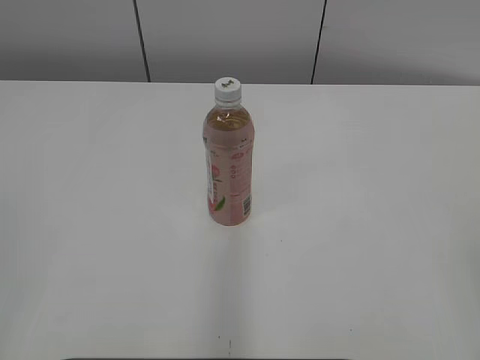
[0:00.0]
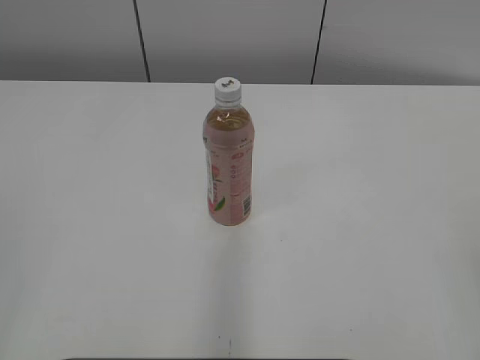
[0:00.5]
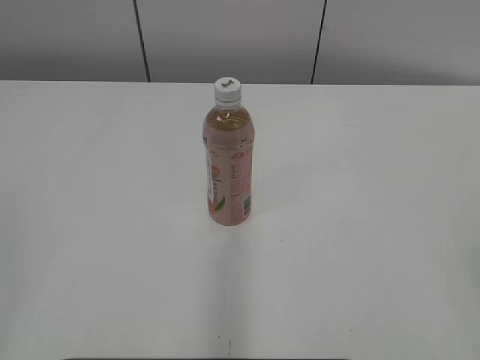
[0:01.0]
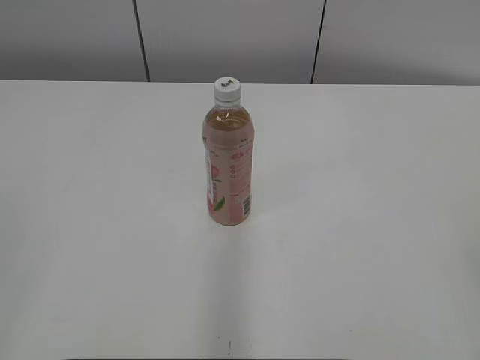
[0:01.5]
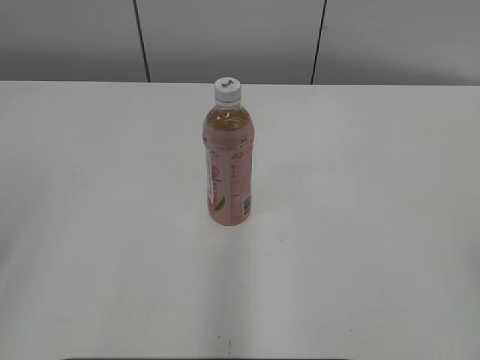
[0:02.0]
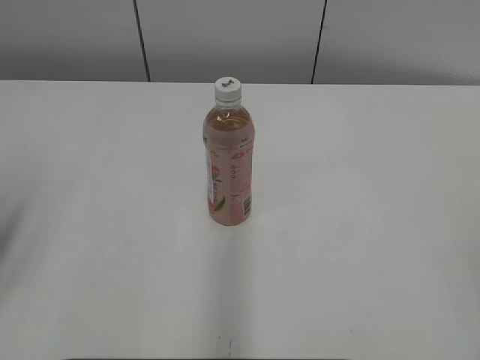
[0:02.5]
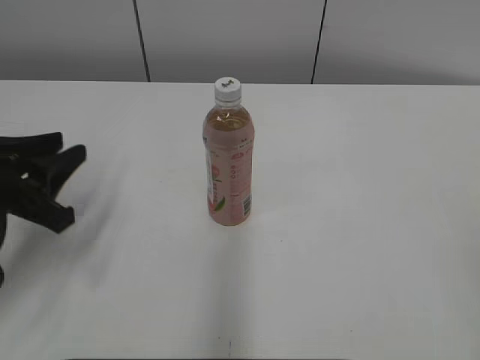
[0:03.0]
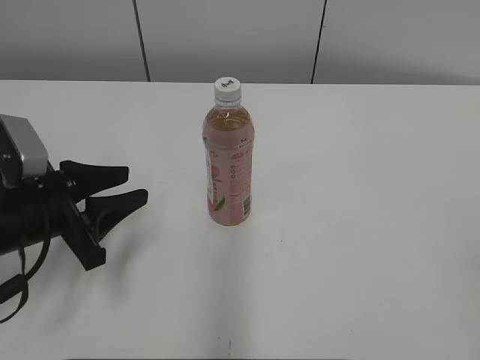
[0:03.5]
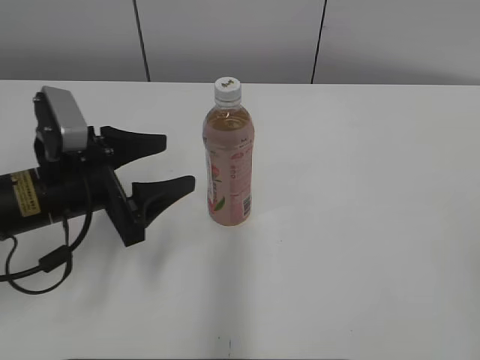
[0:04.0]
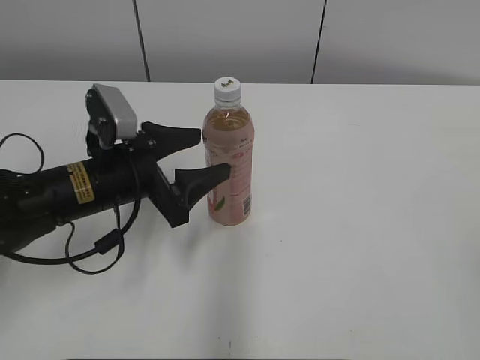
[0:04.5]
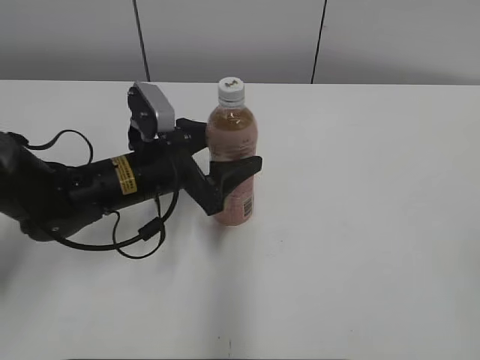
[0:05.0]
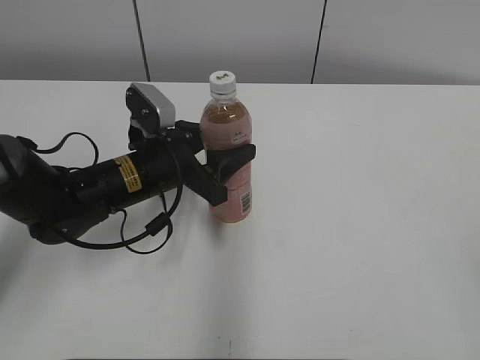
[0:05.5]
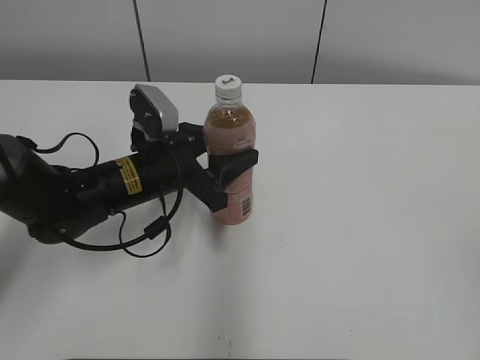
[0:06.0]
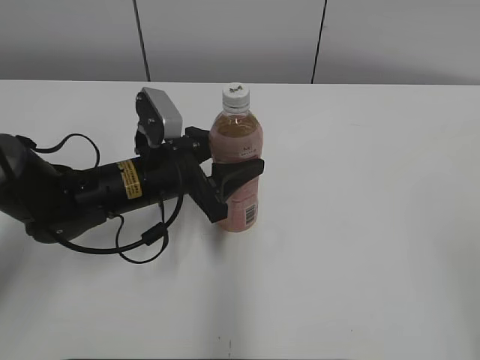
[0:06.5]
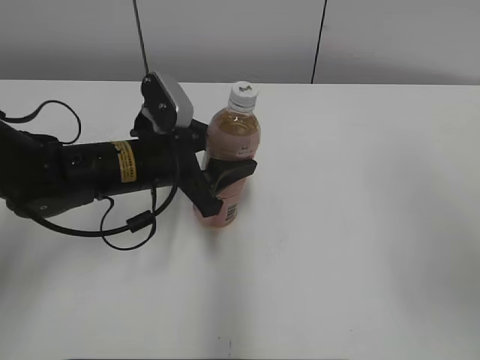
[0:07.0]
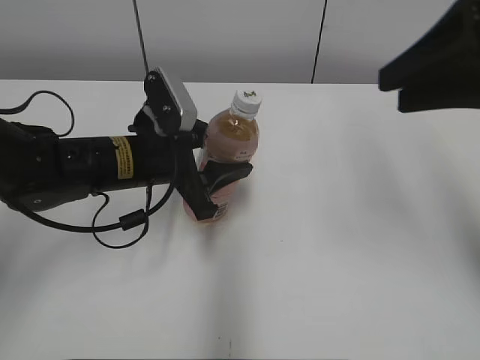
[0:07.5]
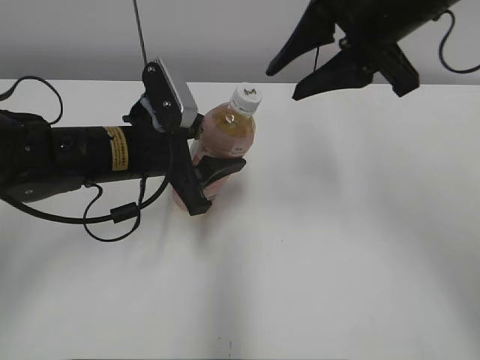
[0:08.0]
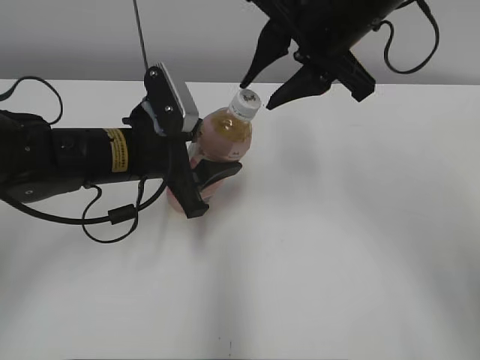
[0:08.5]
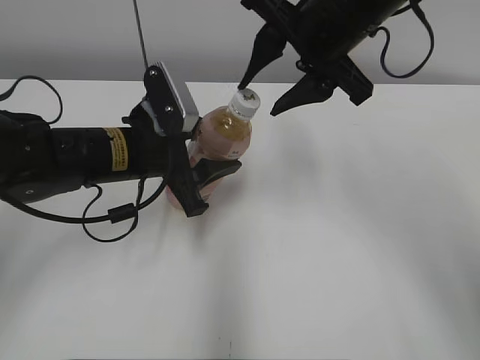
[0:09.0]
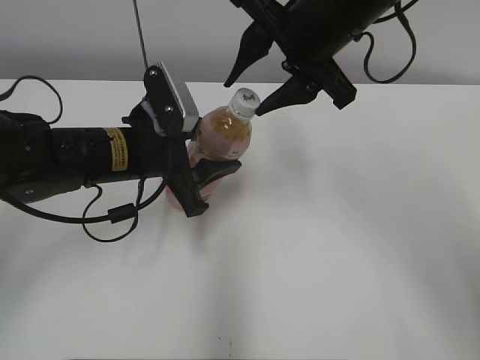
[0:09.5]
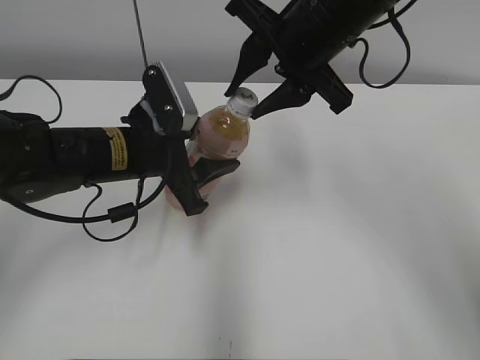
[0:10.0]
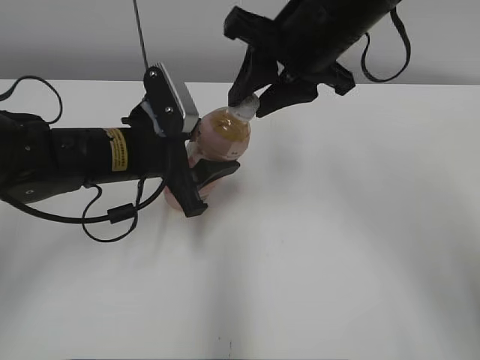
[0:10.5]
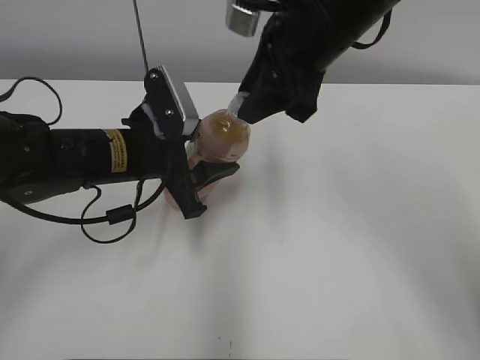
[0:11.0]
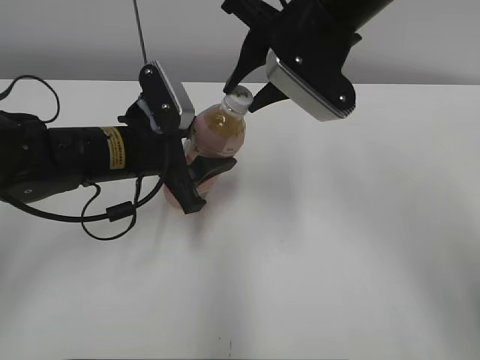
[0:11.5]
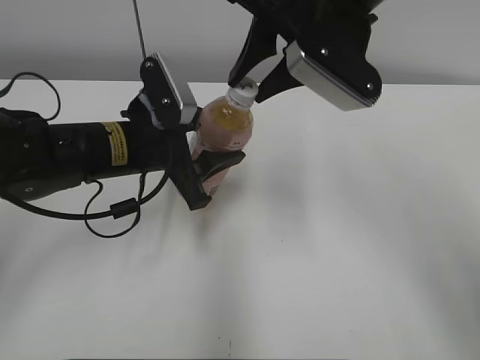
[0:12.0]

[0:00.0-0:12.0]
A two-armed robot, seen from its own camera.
Step, 0:00.0 to 0:05.0: Grab the Peach Oolong Tea with the left hand.
0:02.0 to 0:04.0: The left gripper heads forward, downward and to the right, covering about 30 cm, and opens up.
0:04.0 to 0:06.0: The left gripper travels to the right and forward by about 10 cm.
0:06.0 to 0:08.0: The right gripper is displaced forward and to the left by roughly 35 cm.
0:08.0 to 0:10.0: The right gripper changes place by about 5 cm.

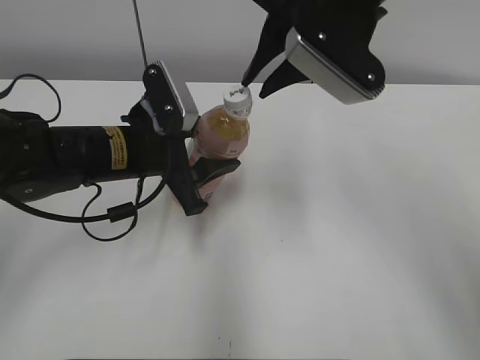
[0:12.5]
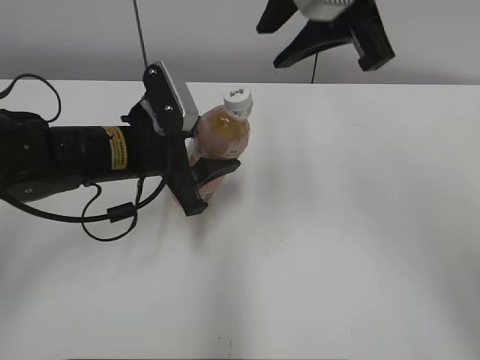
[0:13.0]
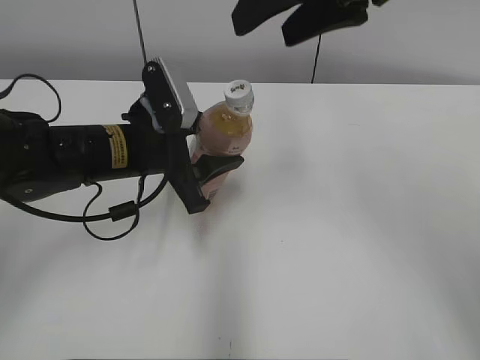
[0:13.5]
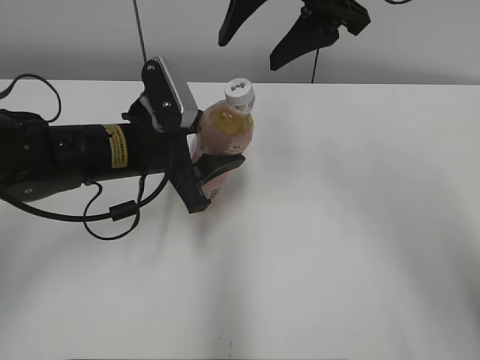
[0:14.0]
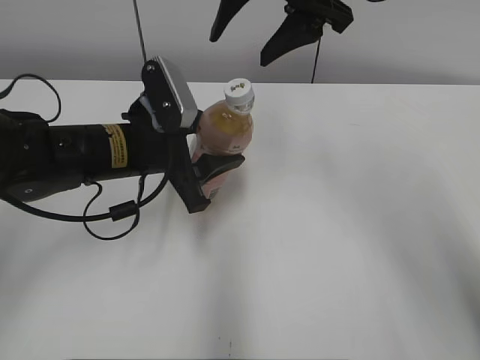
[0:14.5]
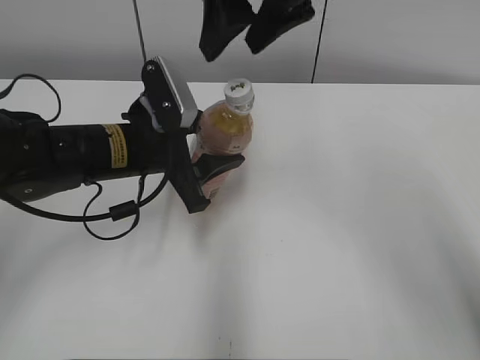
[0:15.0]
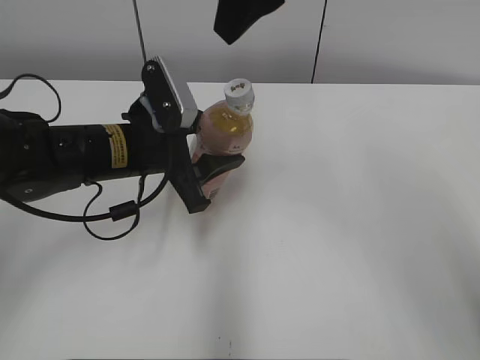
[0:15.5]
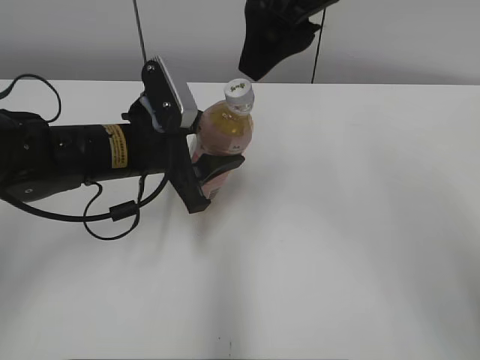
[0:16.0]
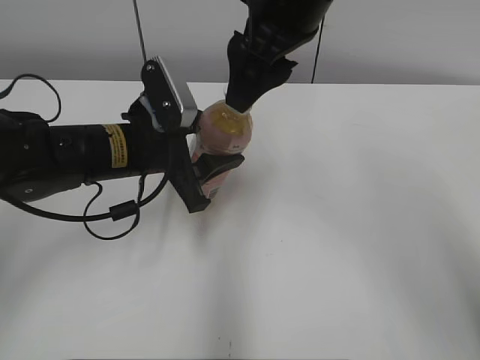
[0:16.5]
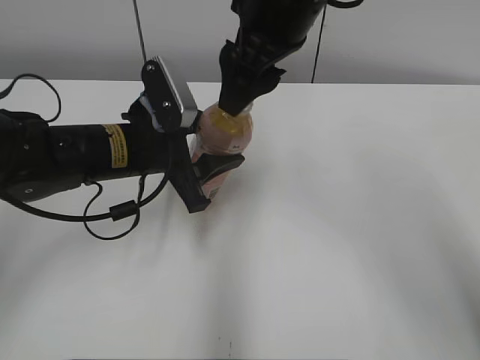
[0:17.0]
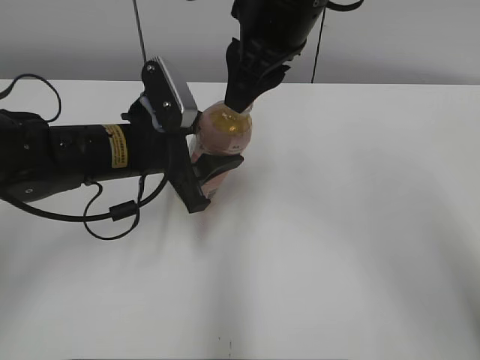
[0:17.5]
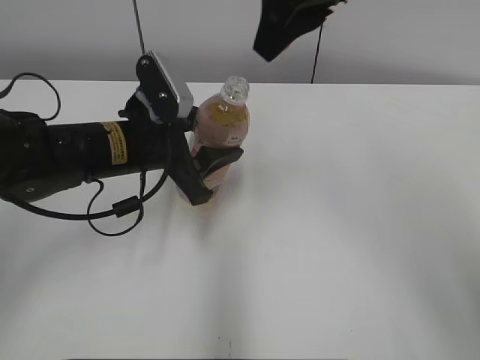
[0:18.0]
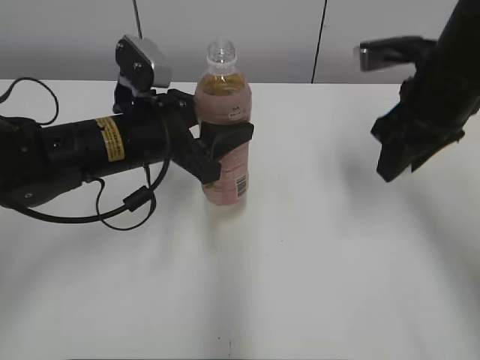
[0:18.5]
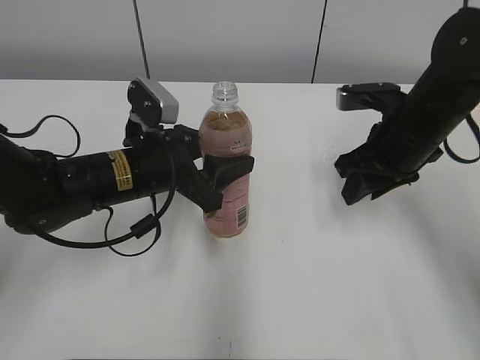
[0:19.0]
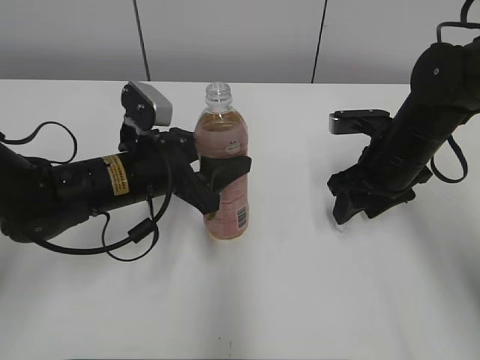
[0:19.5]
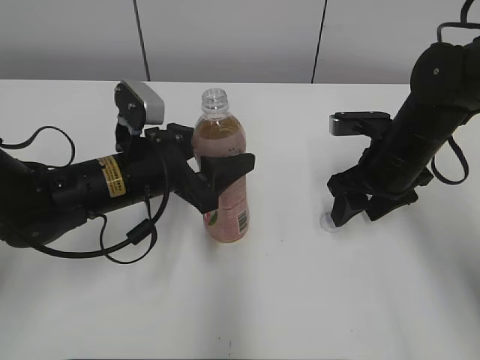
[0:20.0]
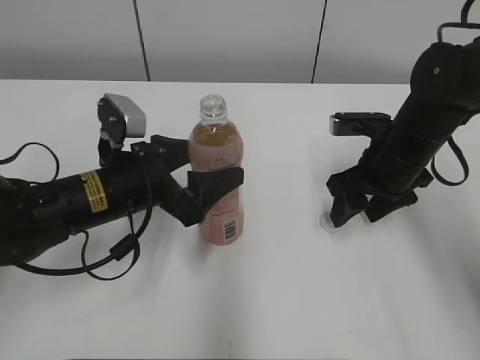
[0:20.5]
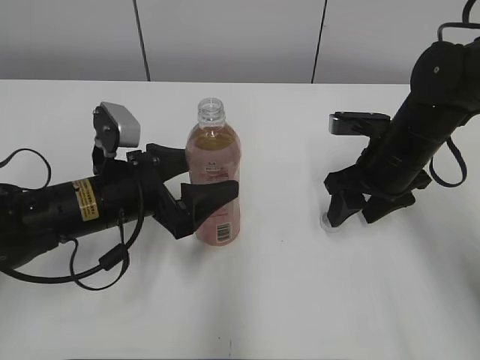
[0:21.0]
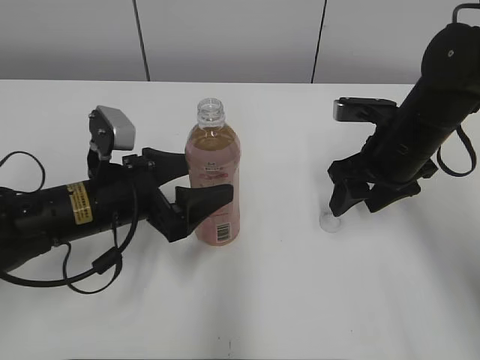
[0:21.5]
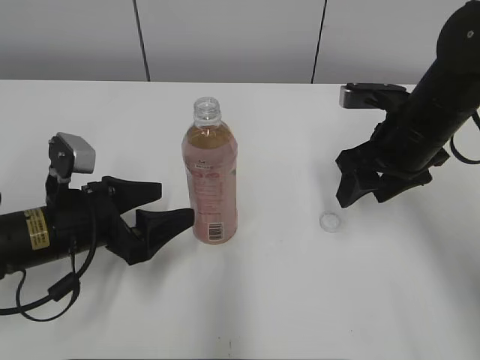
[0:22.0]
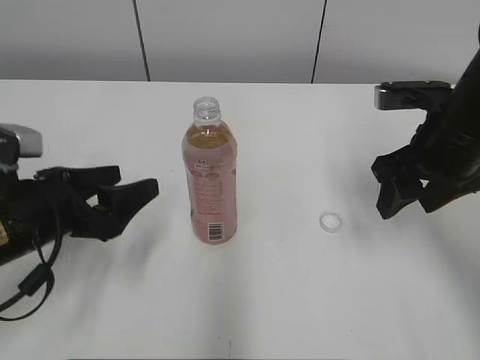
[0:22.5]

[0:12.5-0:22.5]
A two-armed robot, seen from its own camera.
Step, 0:18.0 to 0:19.5: Place the bottle cap on the right.
Step, 0:20.0 to 0:21.5: Place the Peach Oolong Tea with the left hand.
0:12.5 to 0:14.5: The right gripper opens.
0:16.5 to 0:18.5: The right gripper moves to the right and downward, about 15 cm, and closes its fingers.
0:18.5 to 0:20.5: The right gripper travels downward by some 10 cm, and opens its fingers. The left gripper heads downward, covering some 5 cm, and opens.
0:20.5 to 0:22.5: The left gripper heads to the left and backward, covering about 10 cm. Meanwhile the right gripper goes approximately 5 cm upward.

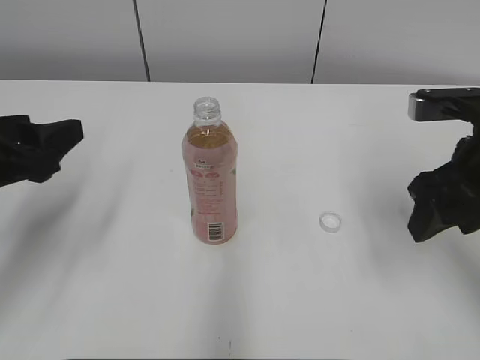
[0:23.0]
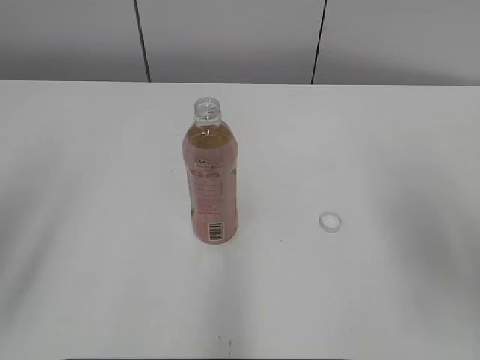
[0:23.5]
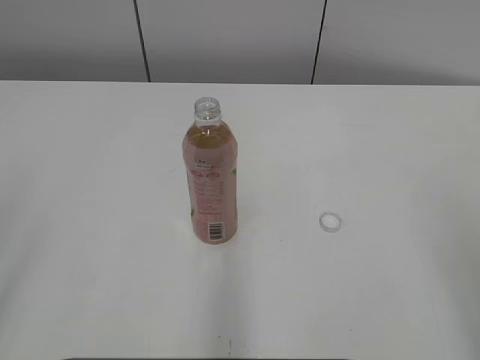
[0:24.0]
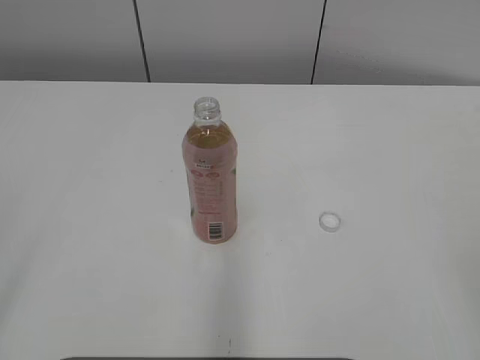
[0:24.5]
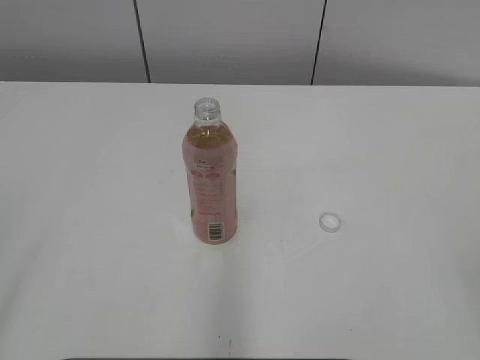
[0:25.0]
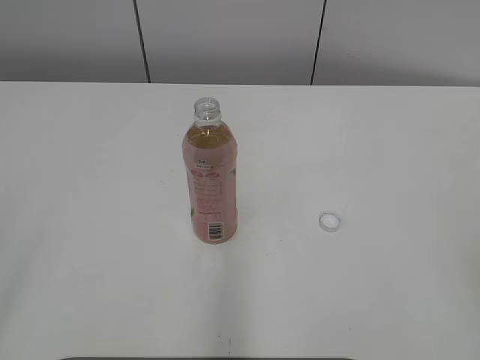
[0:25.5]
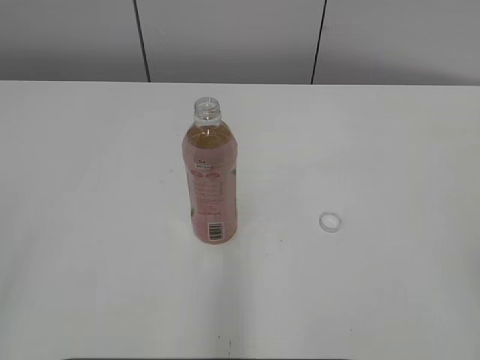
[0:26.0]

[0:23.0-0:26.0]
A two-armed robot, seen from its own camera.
0:23.0 to 0:24.5: The right gripper heads backward, covering roughly 25 cm; the left gripper travels backward and upward by some 25 cm.
